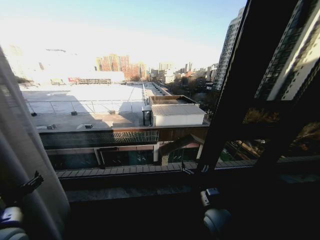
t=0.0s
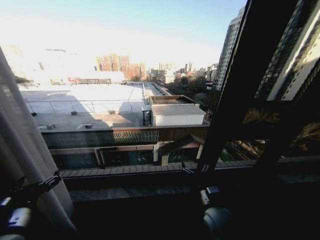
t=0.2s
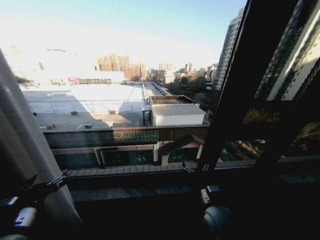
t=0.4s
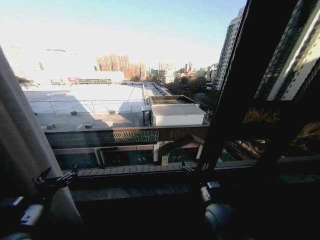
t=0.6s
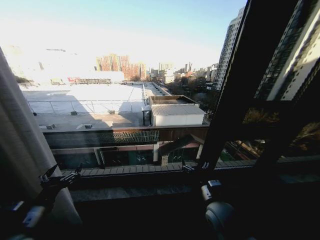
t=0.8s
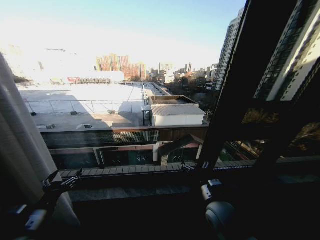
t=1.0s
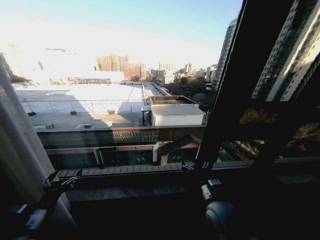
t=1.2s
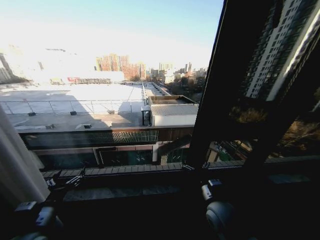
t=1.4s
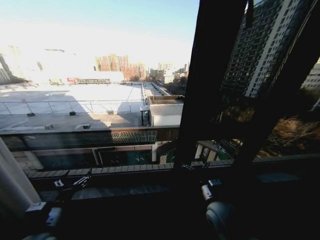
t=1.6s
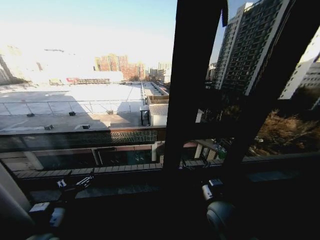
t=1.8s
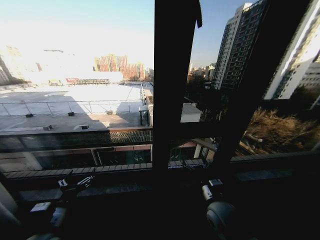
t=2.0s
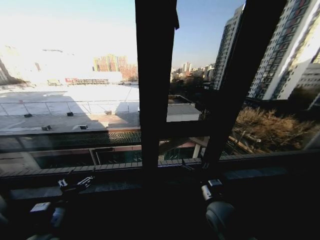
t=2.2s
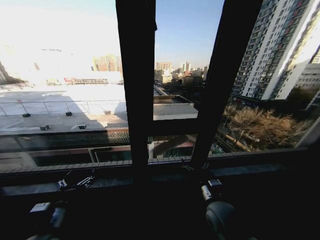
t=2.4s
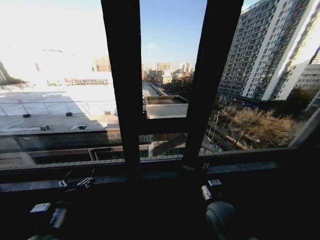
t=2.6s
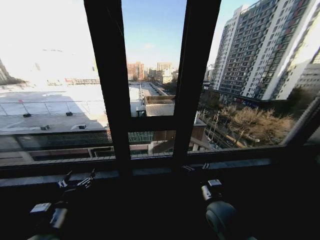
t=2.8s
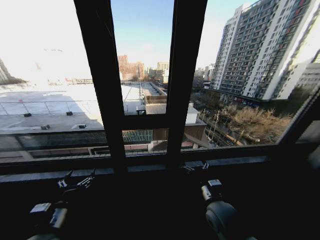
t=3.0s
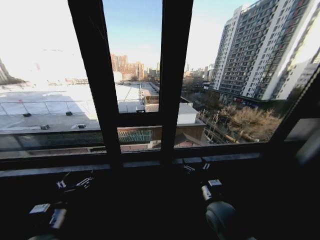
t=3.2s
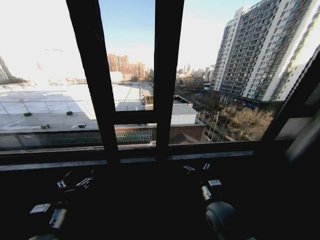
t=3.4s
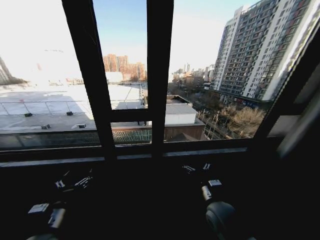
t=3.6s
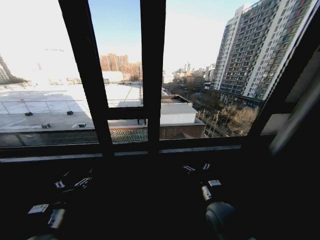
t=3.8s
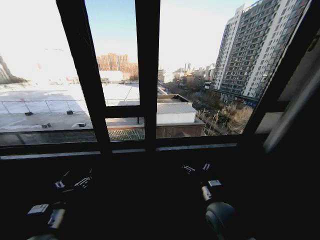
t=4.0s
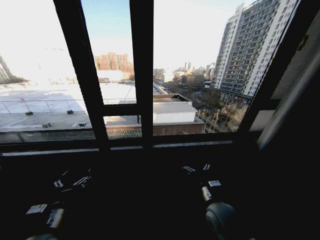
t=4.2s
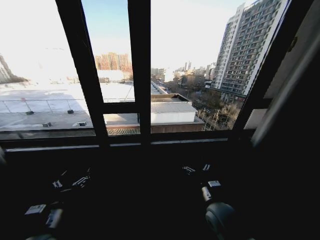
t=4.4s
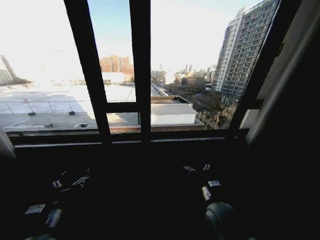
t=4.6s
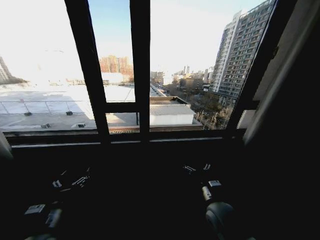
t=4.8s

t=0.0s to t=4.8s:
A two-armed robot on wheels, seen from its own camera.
Task of the whole recording: Open the curtains by pulling them apart, changing their state from closed to fully open.
t=0.0s to t=1.6s: The left gripper goes roughly 5 cm downward.

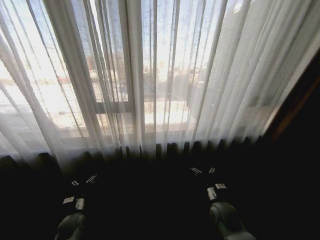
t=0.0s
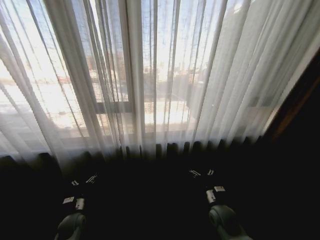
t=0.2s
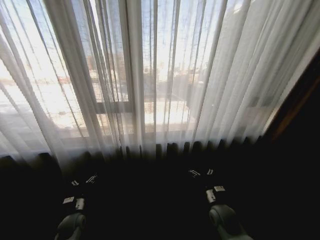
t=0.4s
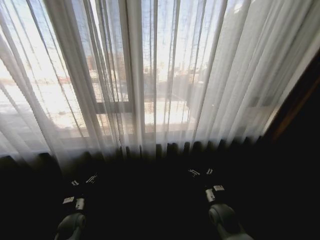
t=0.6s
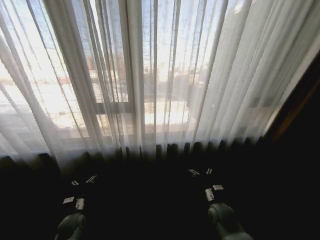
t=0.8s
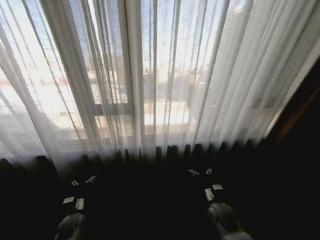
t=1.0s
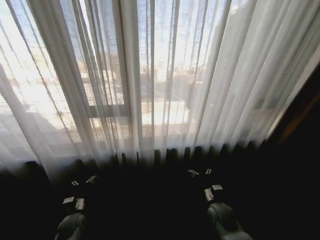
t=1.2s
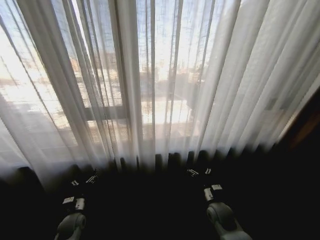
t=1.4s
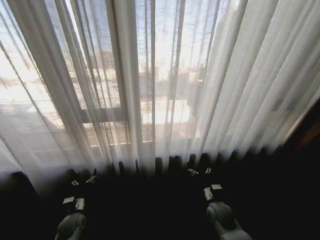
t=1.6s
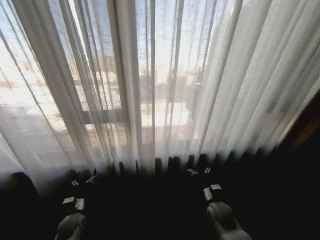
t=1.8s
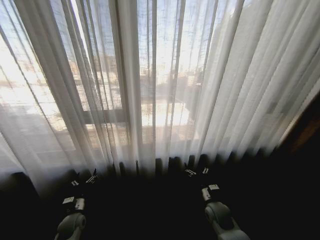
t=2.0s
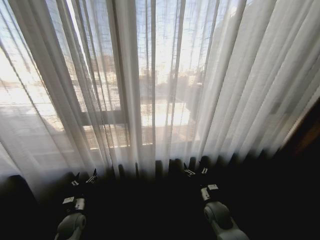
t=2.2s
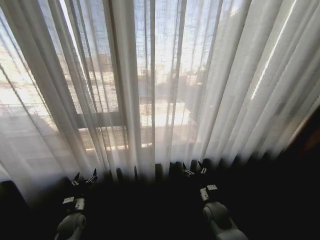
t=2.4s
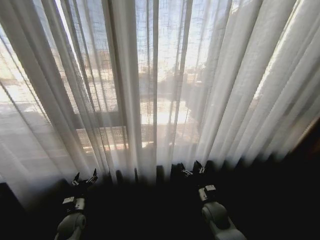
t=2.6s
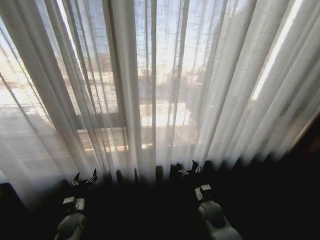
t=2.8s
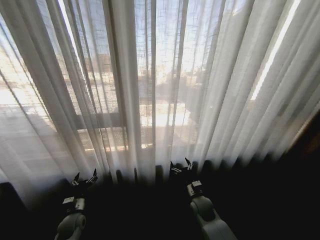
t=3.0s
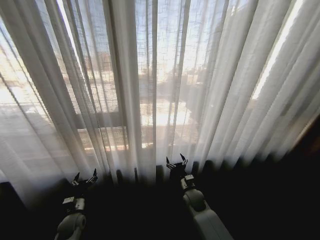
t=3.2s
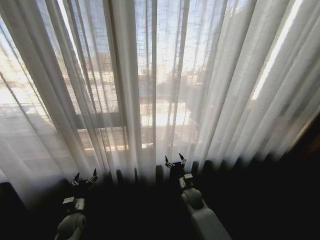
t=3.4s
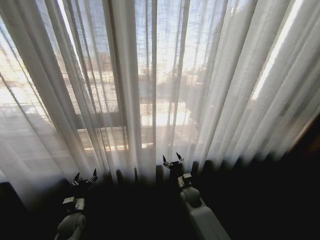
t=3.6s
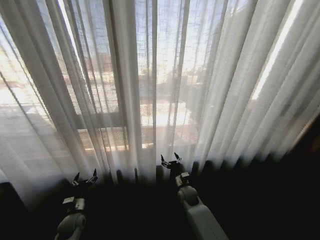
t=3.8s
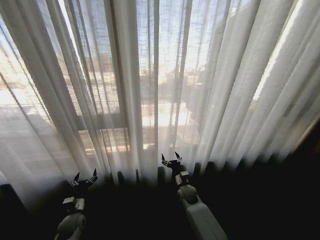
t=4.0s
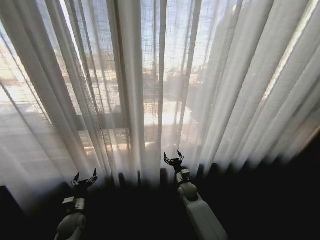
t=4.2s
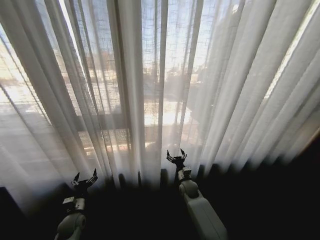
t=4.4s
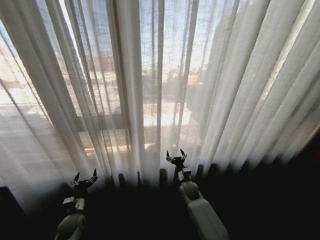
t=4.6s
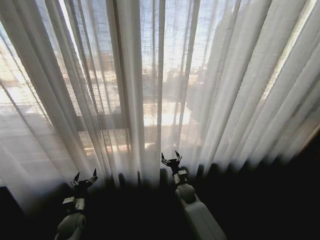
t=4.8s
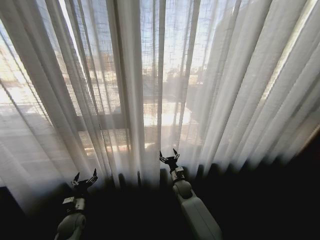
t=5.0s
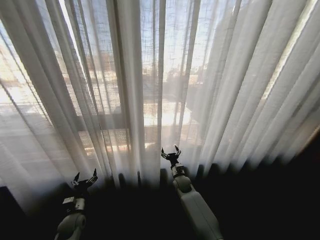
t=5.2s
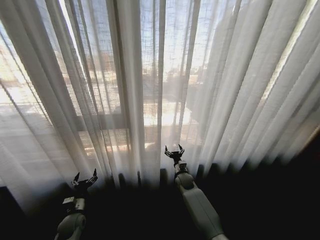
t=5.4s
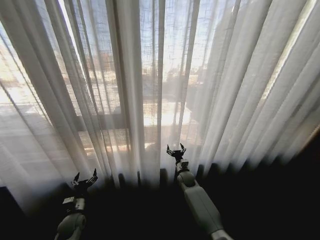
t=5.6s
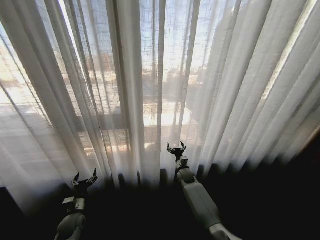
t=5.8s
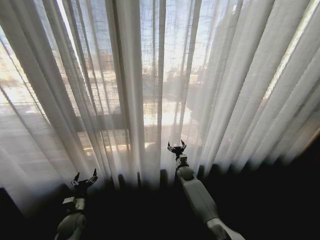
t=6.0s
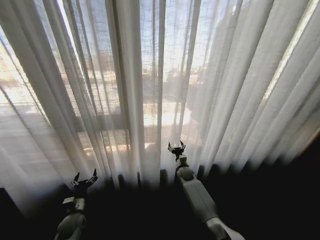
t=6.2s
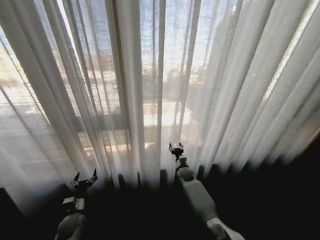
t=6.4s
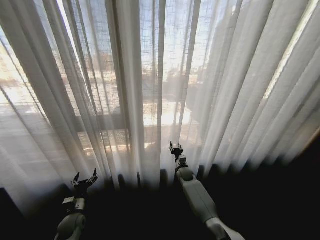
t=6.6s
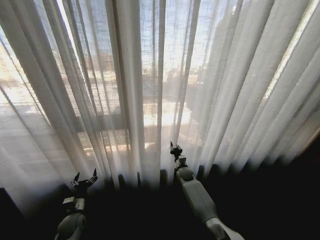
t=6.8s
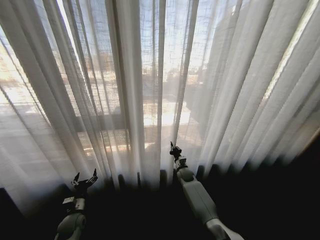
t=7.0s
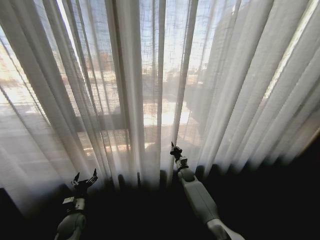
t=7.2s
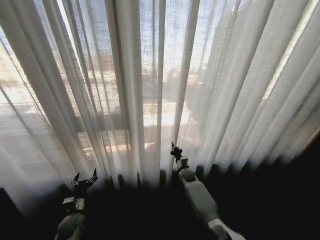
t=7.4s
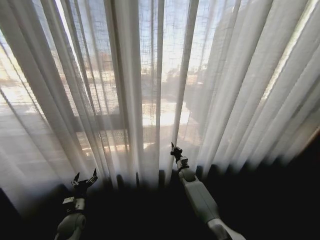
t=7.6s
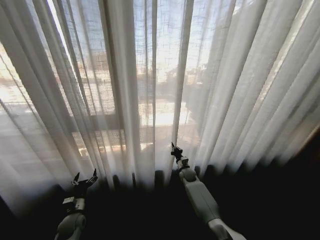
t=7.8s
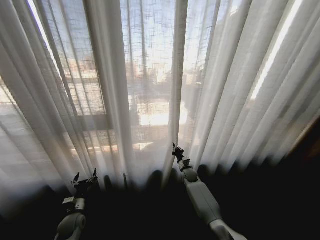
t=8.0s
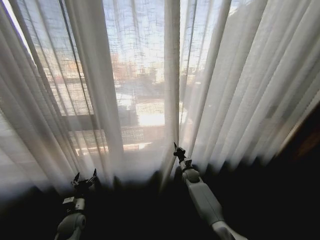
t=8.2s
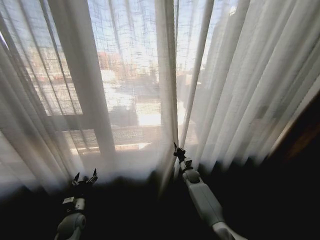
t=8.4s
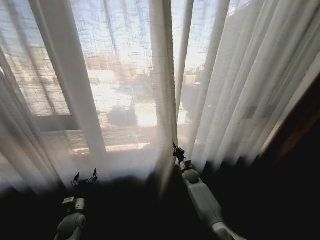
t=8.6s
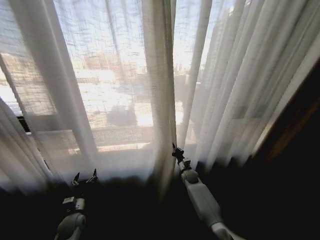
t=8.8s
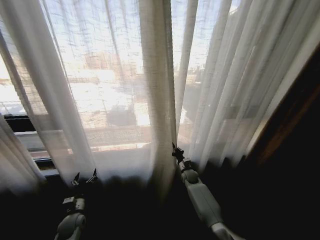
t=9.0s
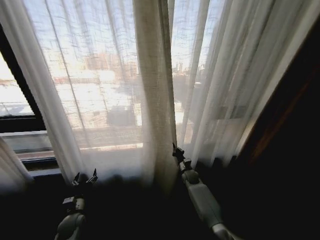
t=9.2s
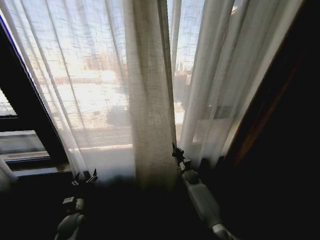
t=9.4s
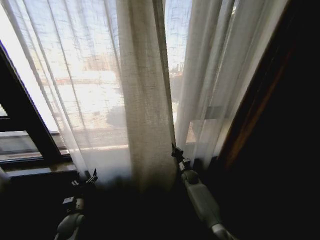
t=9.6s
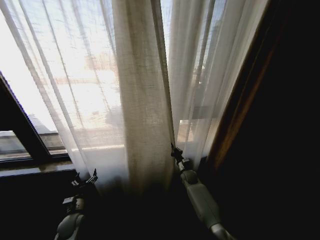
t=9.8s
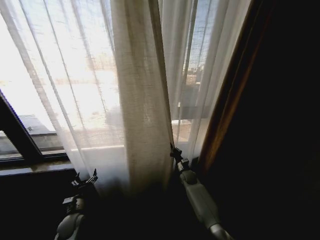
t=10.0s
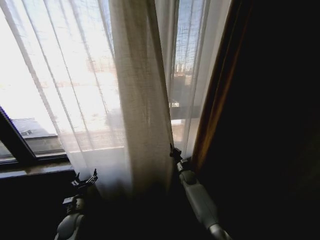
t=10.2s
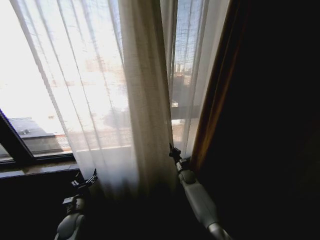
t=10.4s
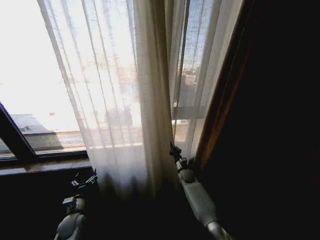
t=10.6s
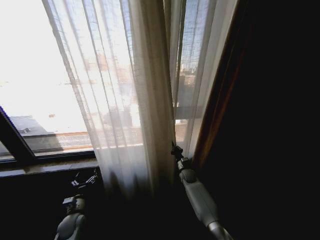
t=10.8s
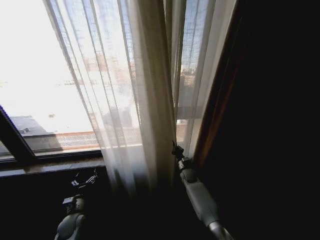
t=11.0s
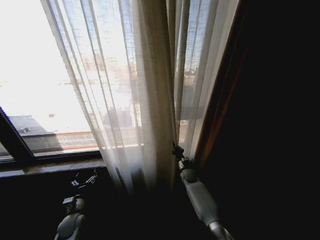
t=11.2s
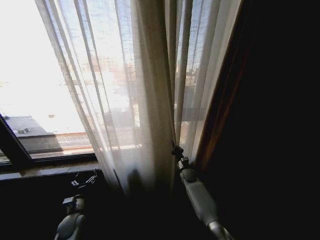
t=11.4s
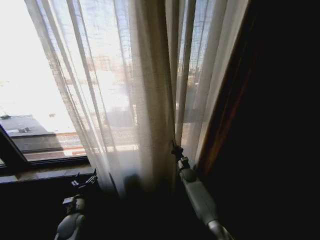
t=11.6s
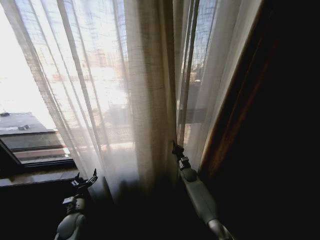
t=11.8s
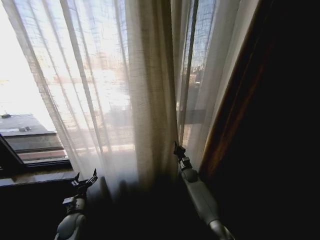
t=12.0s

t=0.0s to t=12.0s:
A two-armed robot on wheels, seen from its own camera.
Task of the whole recording: Open the curtains by pulling them apart, changing their state from closed to fully open.
t=1.6s to t=3.0s: The right gripper travels to the left by roughly 5 cm.
t=3.0s to t=4.4s: The right gripper heads forward, covering approximately 10 cm.
t=4.4s to t=6.0s: The right gripper shifts roughly 10 cm forward.
t=6.0s to t=7.6s: The right gripper closes up.

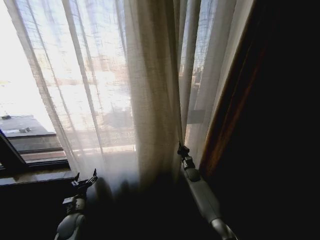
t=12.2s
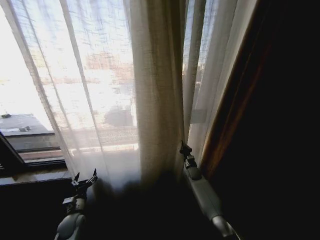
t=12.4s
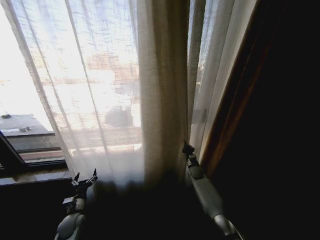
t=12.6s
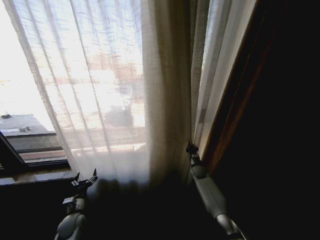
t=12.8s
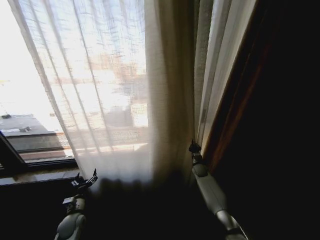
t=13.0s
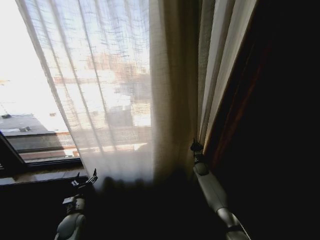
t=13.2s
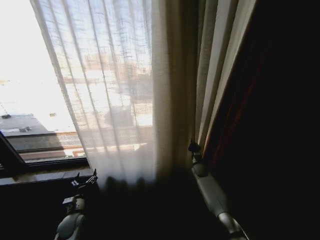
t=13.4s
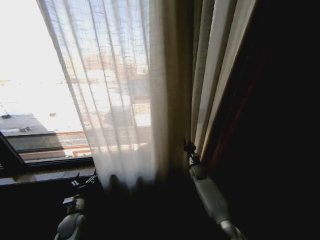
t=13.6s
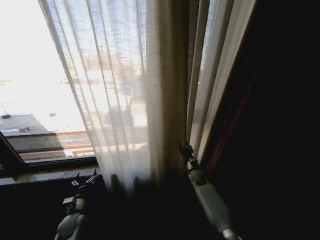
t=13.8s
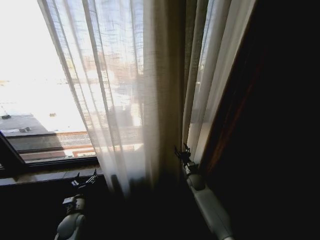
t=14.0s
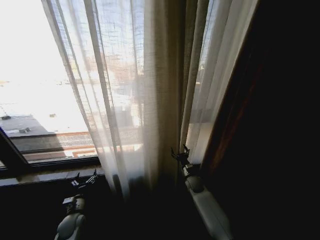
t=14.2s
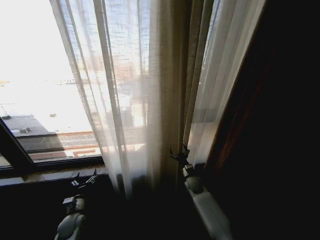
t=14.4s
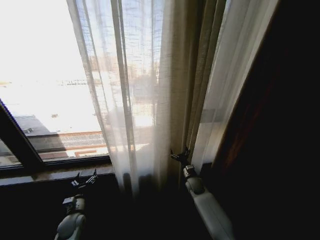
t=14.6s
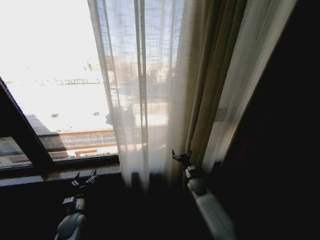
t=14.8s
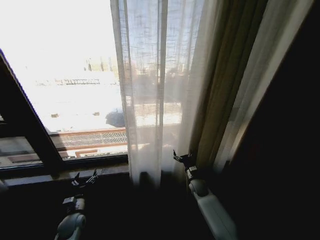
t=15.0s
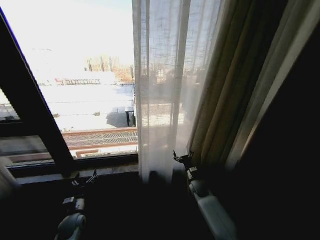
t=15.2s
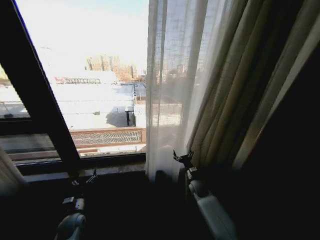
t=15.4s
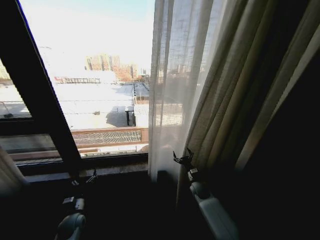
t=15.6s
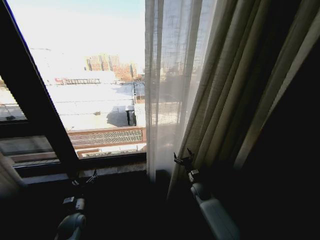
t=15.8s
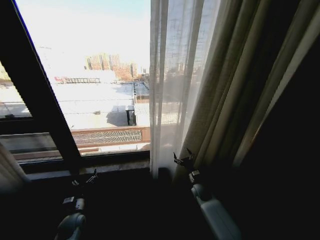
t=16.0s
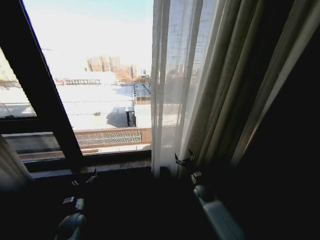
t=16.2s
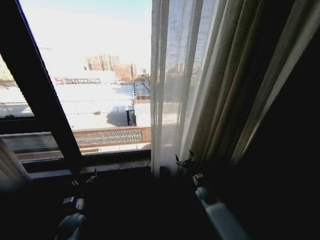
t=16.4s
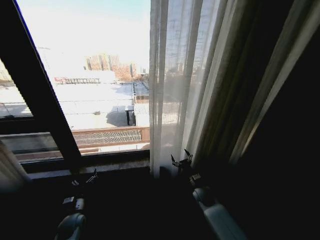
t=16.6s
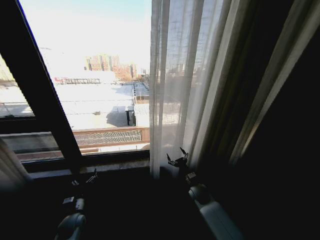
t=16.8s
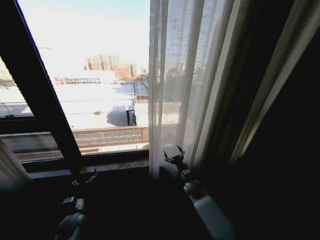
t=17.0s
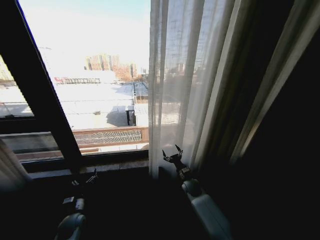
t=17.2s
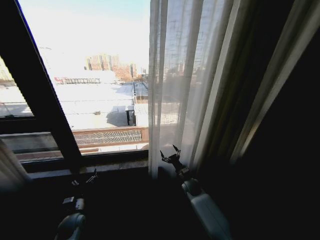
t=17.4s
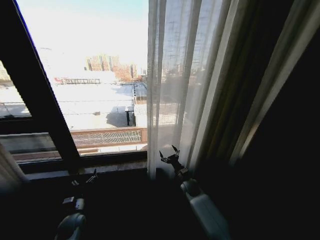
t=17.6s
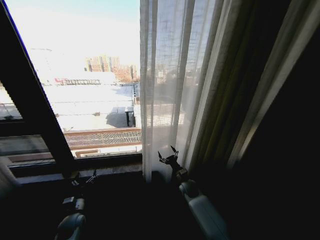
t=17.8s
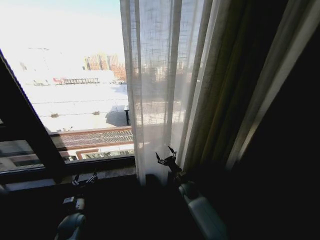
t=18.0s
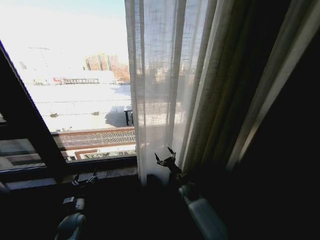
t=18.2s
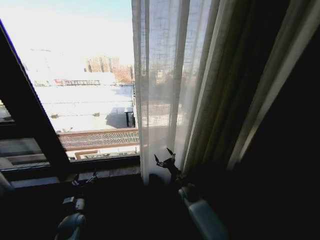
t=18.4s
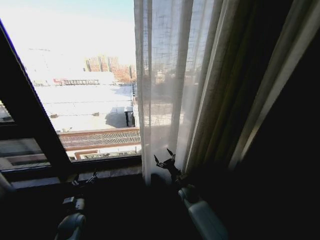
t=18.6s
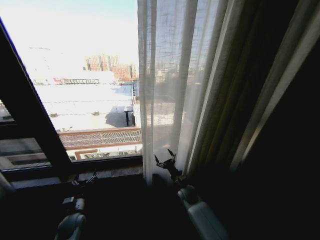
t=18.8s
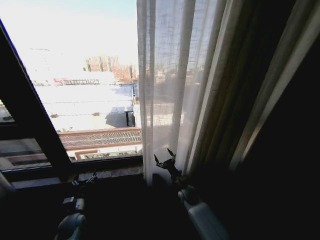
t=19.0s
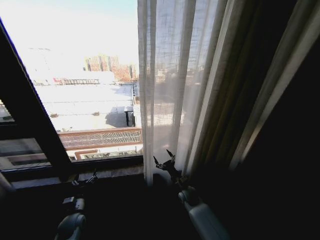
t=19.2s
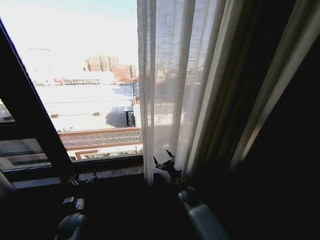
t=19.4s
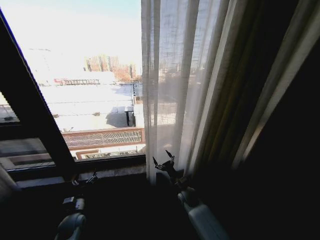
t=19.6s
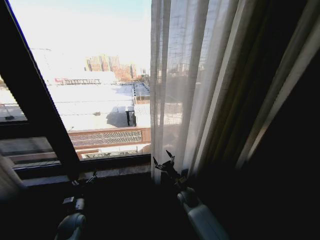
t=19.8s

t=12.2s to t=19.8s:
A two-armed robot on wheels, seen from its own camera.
Task of the whole recording: Open the curtains by pulling them apart, changing their state from closed to fully open.
t=12.2s to t=13.8s: The right gripper opens up.
t=13.8s to t=15.2s: The right gripper travels backward by about 5 cm, and opens.
t=16.8s to t=18.2s: The right gripper is displaced to the left by approximately 5 cm.
